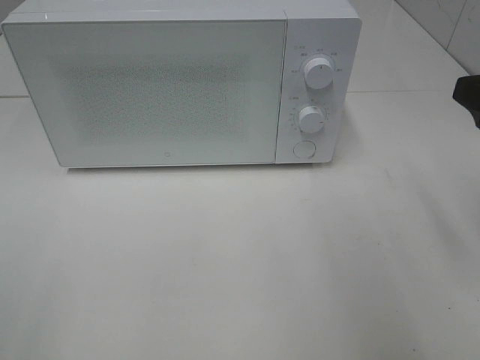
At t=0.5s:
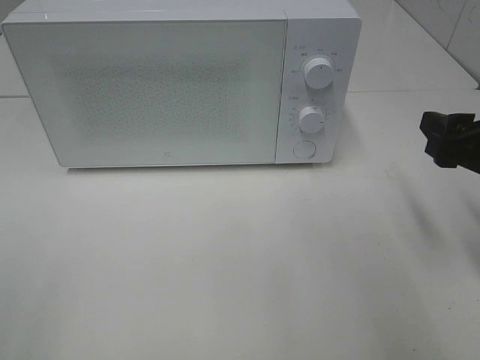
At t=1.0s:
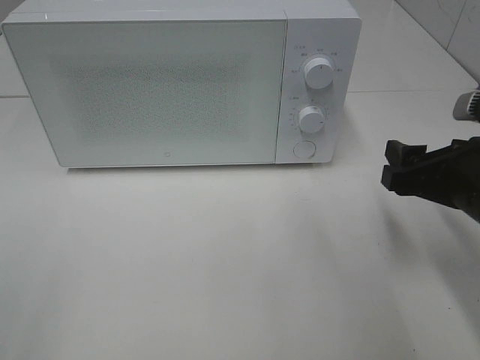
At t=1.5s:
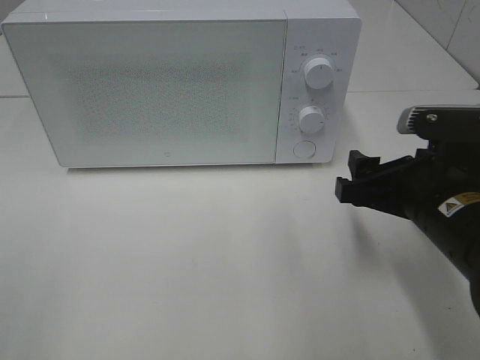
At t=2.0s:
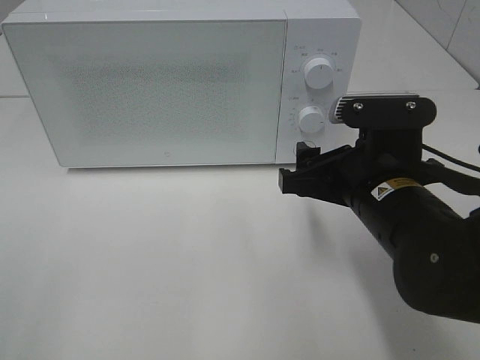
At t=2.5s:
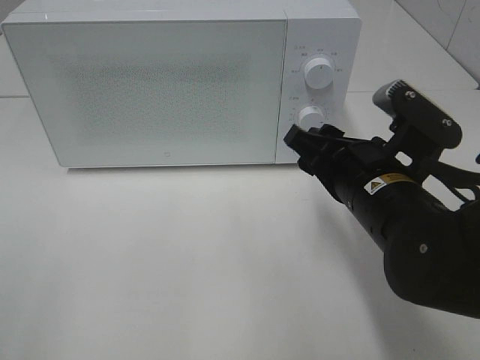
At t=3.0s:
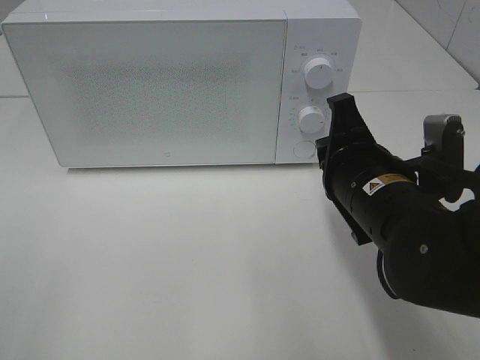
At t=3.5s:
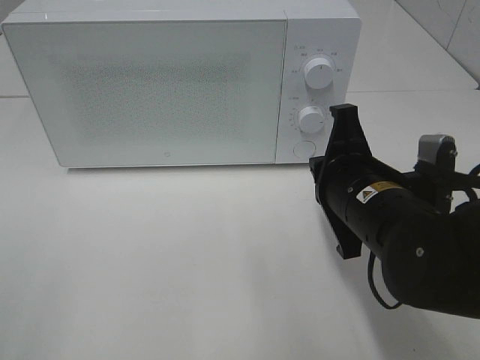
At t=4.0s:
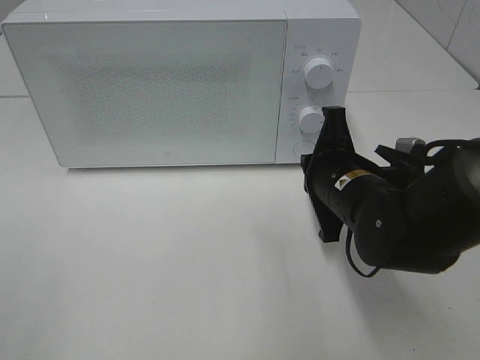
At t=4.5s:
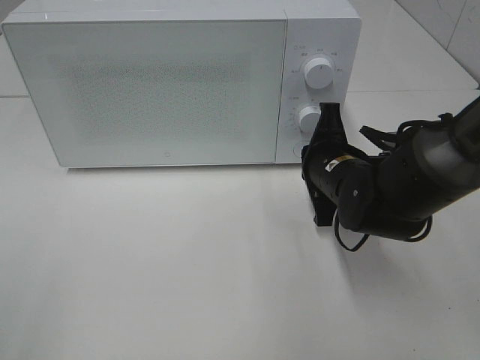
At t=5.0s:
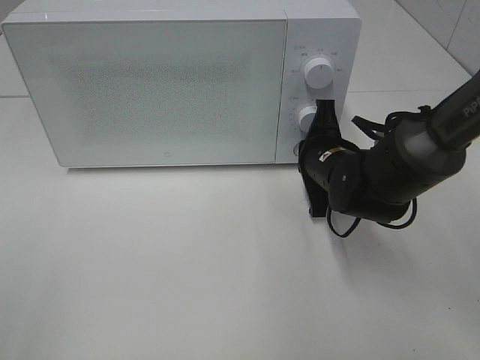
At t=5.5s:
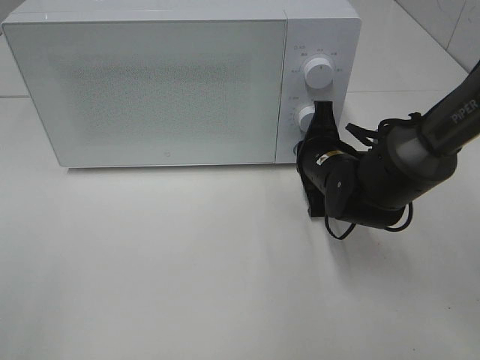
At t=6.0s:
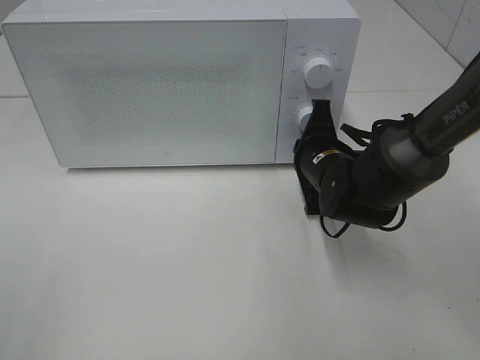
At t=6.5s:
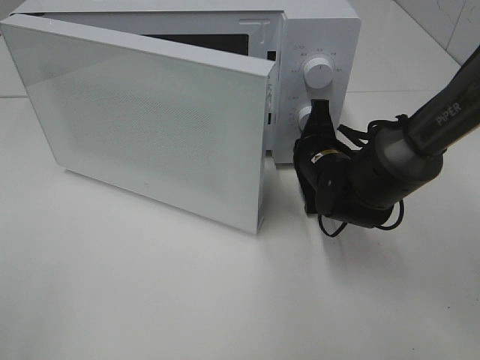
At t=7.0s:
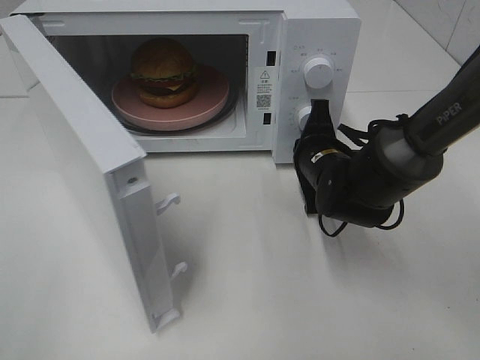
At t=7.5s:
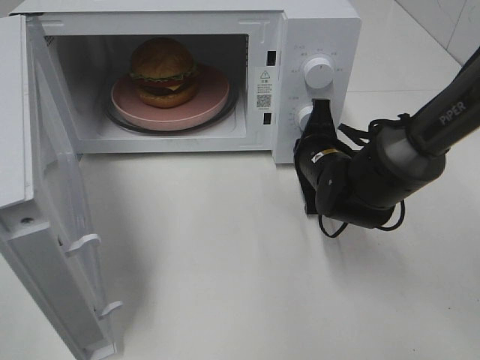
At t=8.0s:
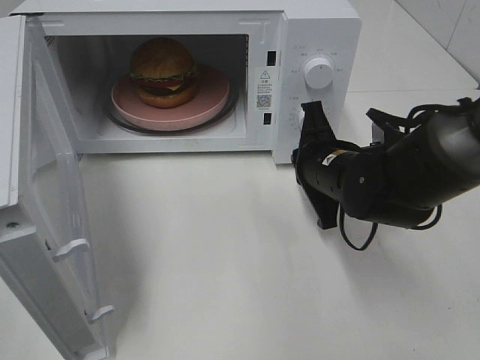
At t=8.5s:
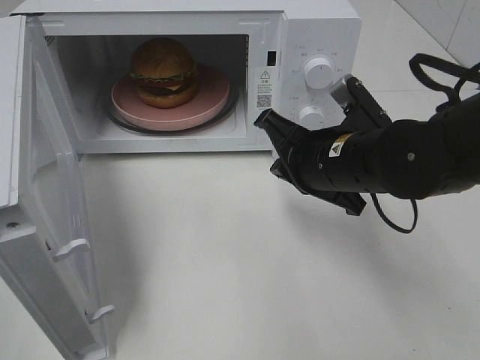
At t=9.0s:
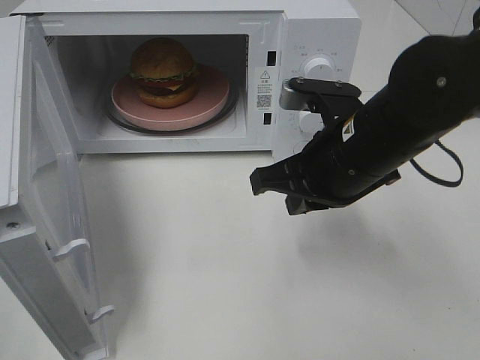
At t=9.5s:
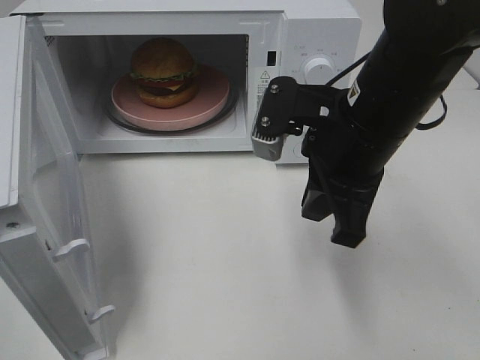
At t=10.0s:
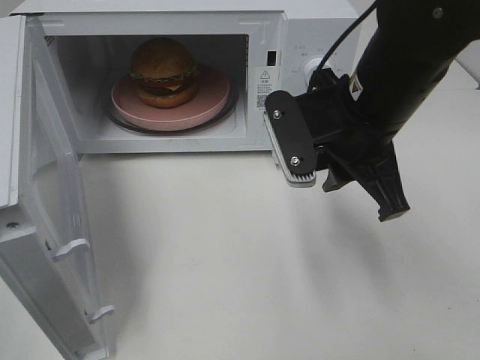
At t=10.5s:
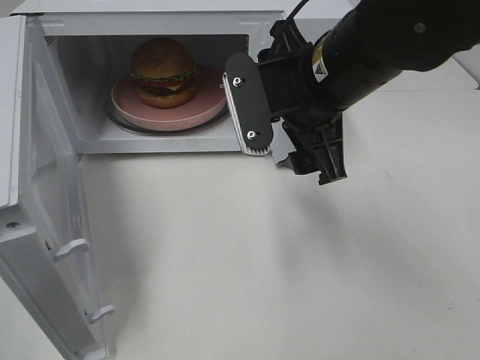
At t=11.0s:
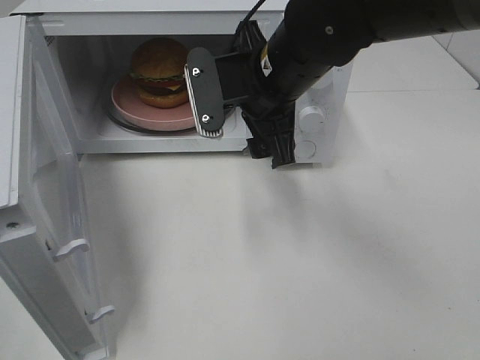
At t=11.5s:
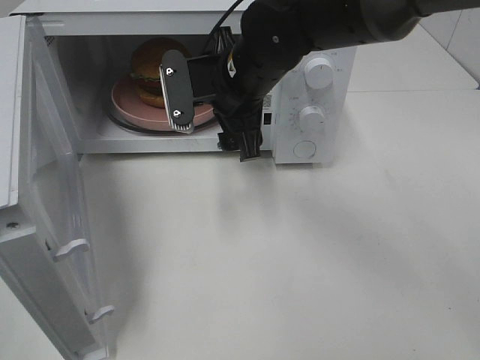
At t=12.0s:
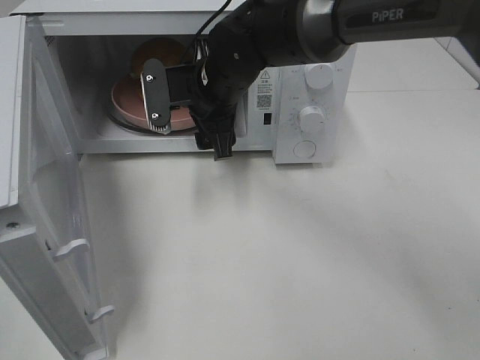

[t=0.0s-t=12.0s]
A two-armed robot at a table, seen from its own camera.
Task of the whole recording: Heat the burger.
Step, t=0.0s to t=7.5s: Right hand: press the switch.
t=0.0s to t=2.0s: The right gripper heads to the left and downward, covering some 15 cm.
t=2.0s to t=4.0s: The right gripper heads forward, covering about 5 cm, and closes.
t=4.0s to t=6.0s: The right gripper heads forward, covering approximately 10 cm.
t=6.0s to t=8.0s: The right gripper moves about 5 cm.
t=8.0s to t=10.0s: The right gripper moves upward, approximately 10 cm, and opens up.
t=10.0s to t=12.0s: The right gripper heads to the left, forward and downward, covering approximately 20 cm, and opens.

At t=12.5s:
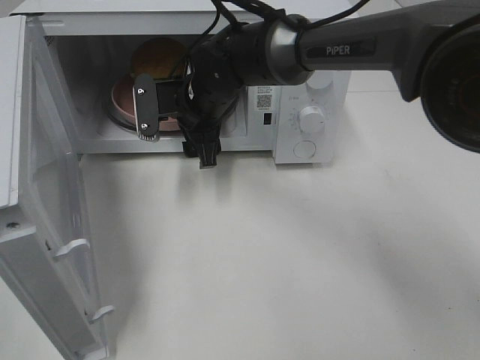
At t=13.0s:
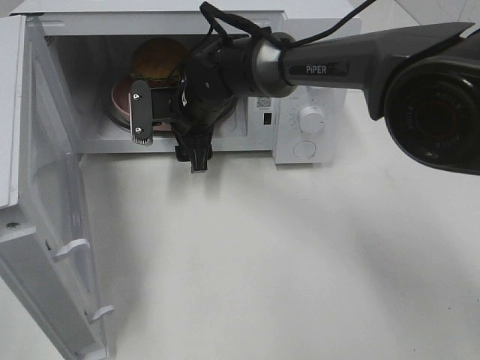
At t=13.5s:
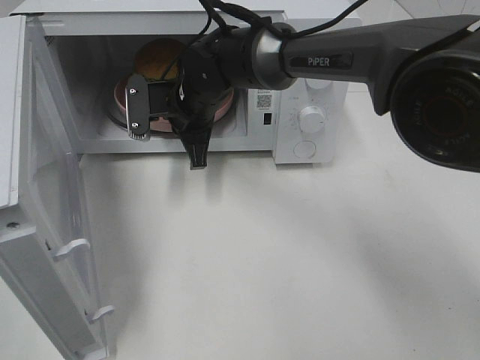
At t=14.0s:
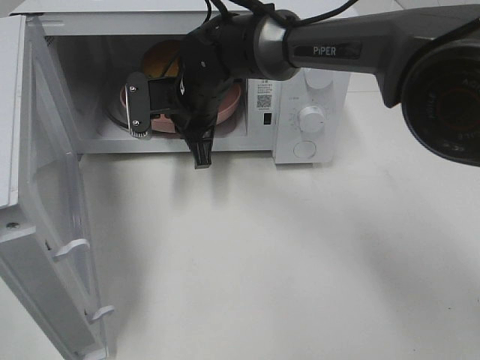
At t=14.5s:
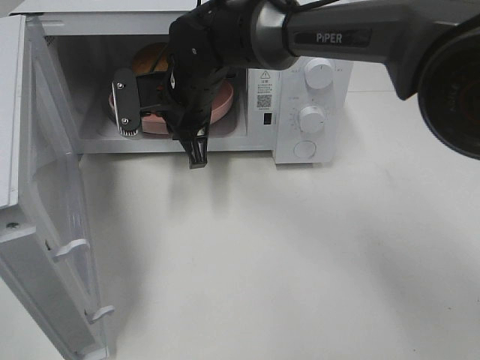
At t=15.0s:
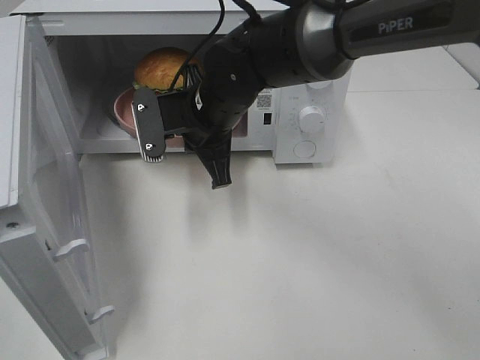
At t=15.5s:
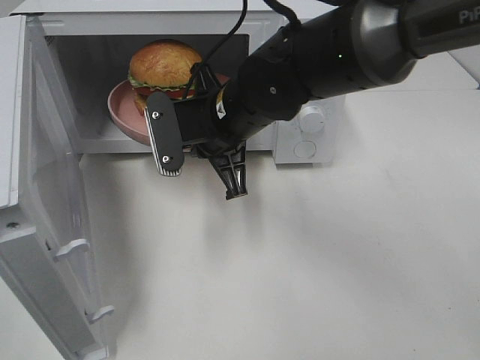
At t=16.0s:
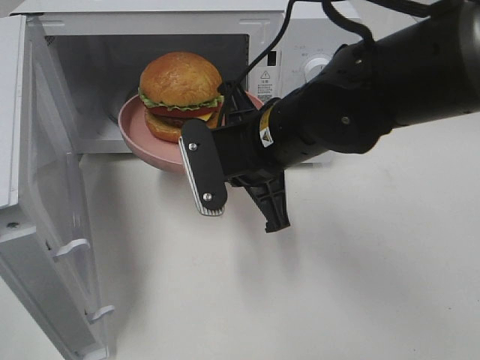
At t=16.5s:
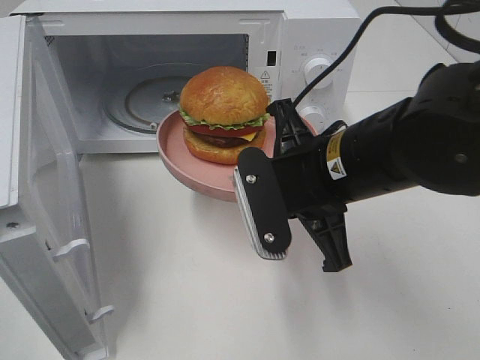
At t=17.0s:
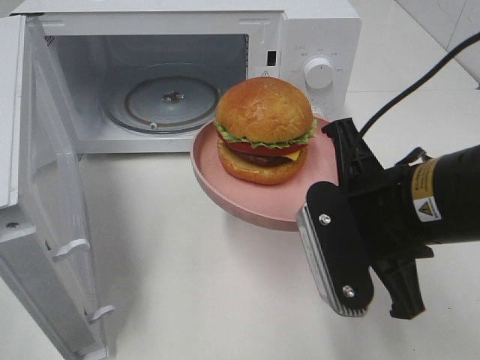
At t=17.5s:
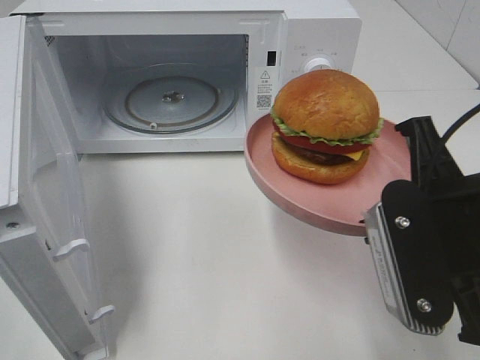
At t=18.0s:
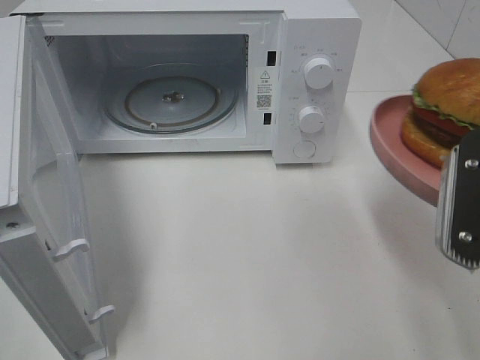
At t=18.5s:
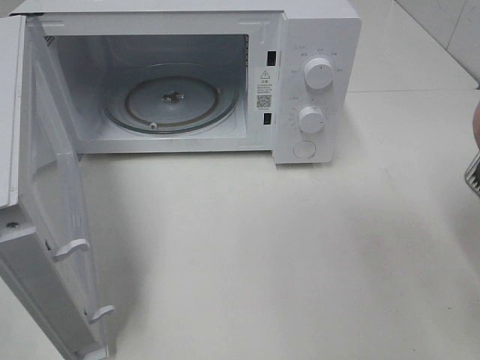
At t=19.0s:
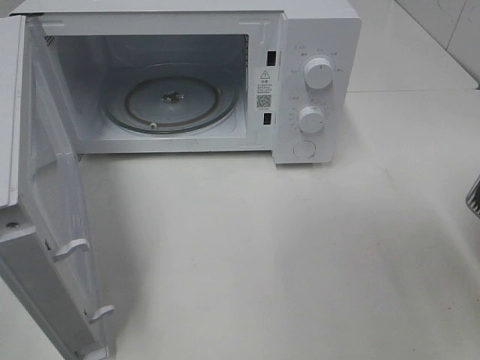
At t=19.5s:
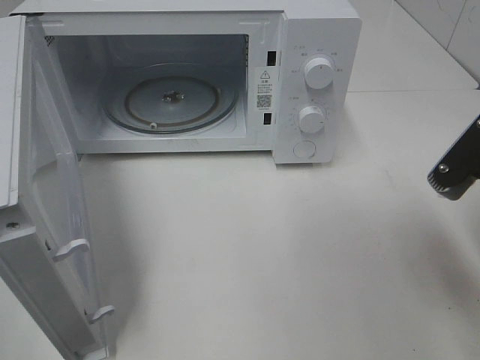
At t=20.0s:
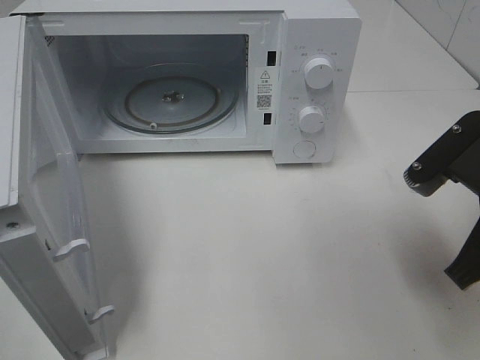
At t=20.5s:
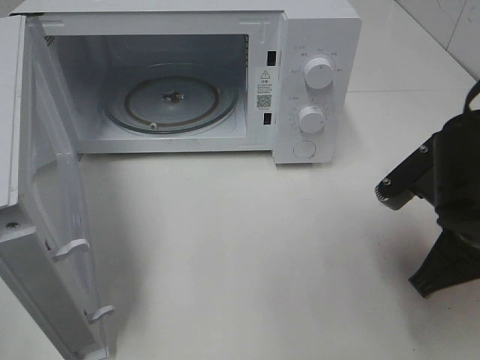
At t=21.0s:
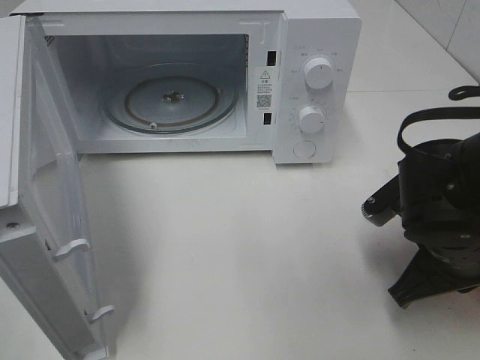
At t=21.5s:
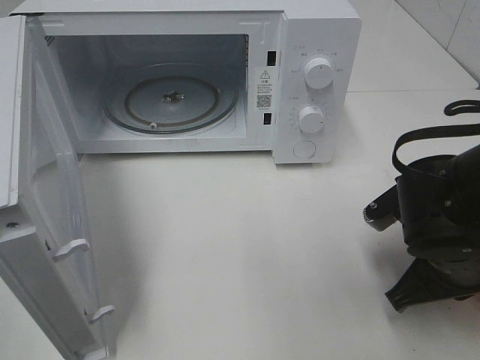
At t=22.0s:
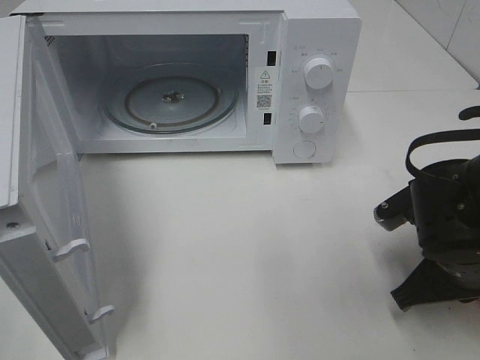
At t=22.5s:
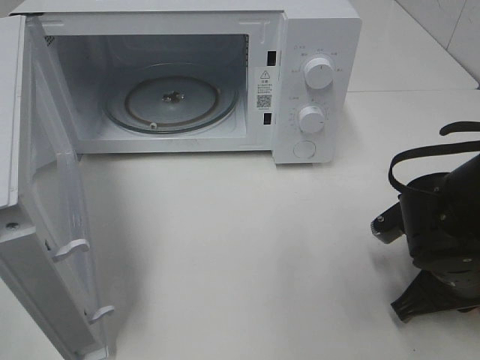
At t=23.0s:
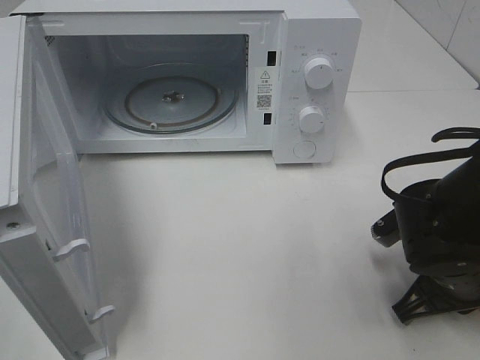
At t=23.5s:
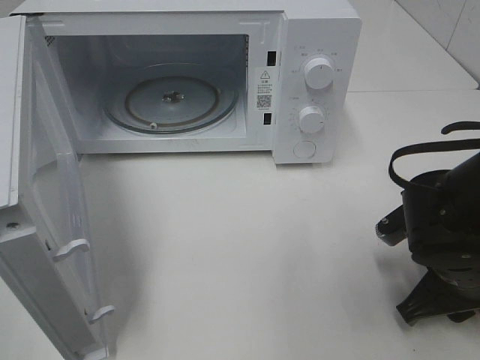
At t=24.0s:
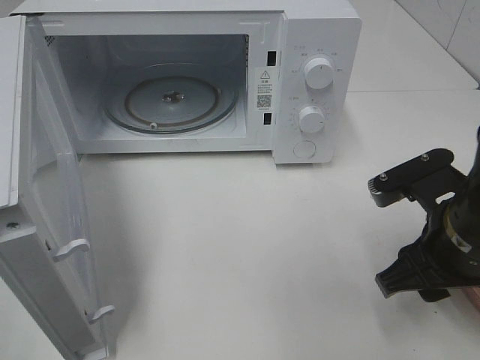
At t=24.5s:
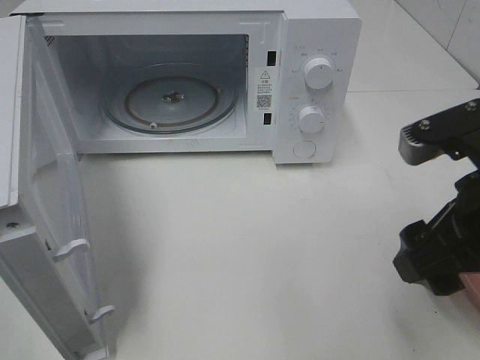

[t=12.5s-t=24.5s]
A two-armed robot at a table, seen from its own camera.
Task of the whole recording: Heat the burger.
Step, t=14.0s to t=23.5s: Right hand: place the plate in the microwave.
t=12.5s to t=14.5s: The right gripper closes up.
t=14.5s to t=16.5s: The right gripper is displaced backward and to the right by some 20 cm.
t=16.5s to t=18.5s: The right gripper is displaced to the right and backward by roughly 15 cm.
t=18.5s to t=20.5s: The right gripper goes approximately 10 cm downward and forward.
t=20.5s to t=22.5s: The right gripper goes roughly 10 cm downward.
t=22.5s to t=24.5s: The right gripper moves upward, about 15 cm, and opens its fingers.

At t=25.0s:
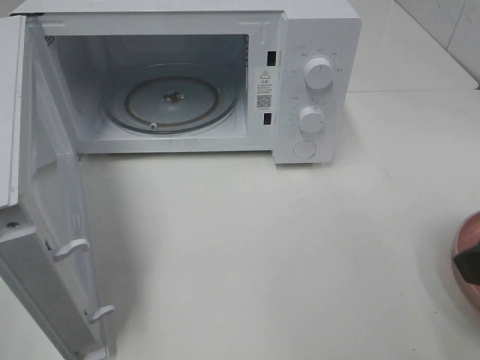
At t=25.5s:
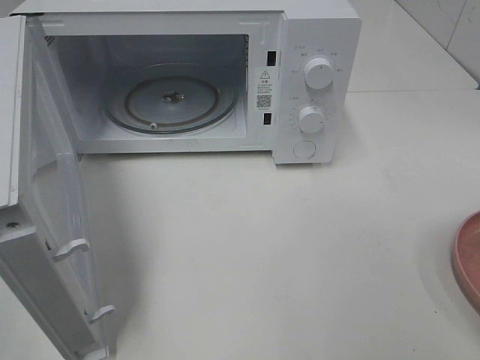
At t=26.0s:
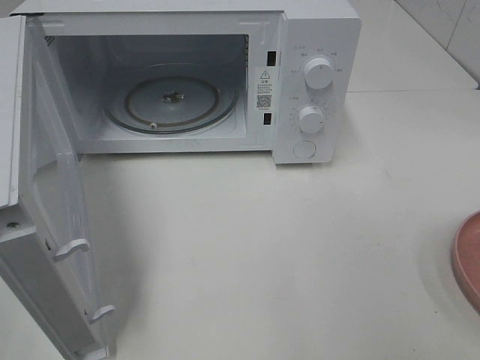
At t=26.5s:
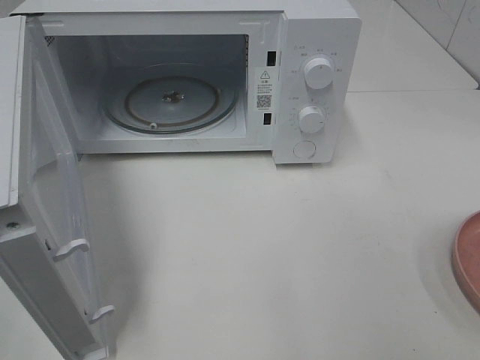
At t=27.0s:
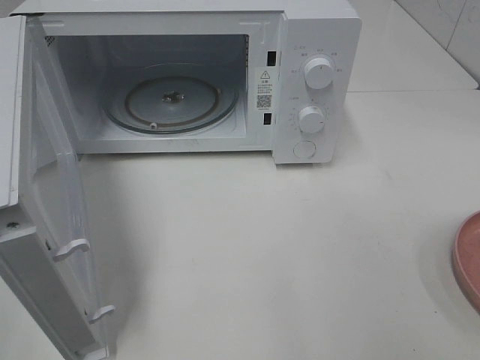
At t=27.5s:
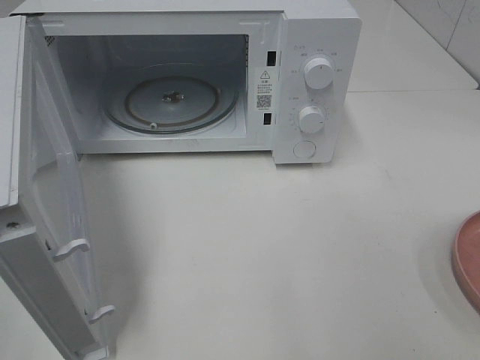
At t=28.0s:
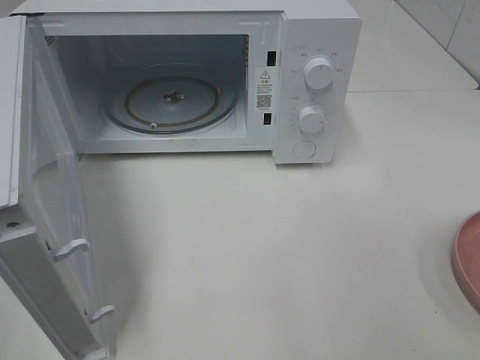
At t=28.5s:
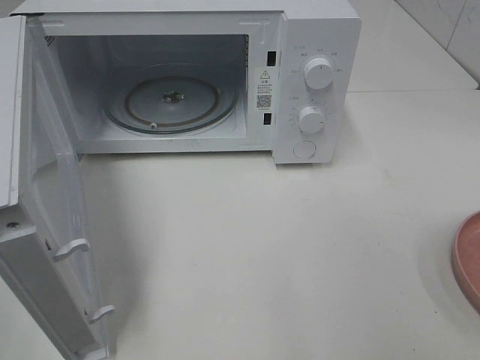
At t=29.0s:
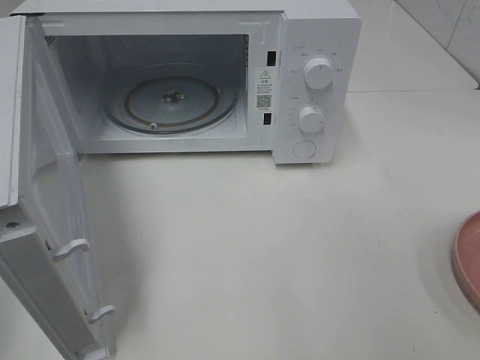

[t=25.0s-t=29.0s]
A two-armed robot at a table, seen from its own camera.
Task of the whole recording: Heat the burger.
t=25.0s to t=27.0s: The right gripper travels backward and to the right by some 15 cm.
